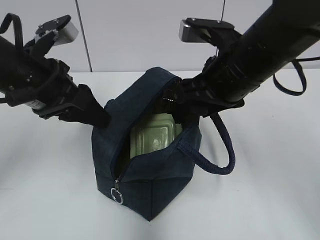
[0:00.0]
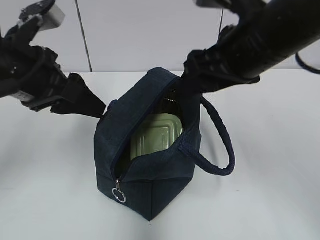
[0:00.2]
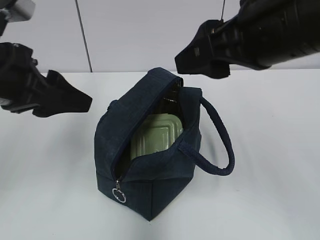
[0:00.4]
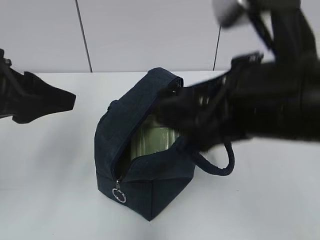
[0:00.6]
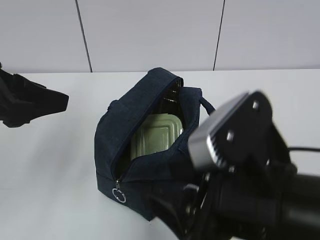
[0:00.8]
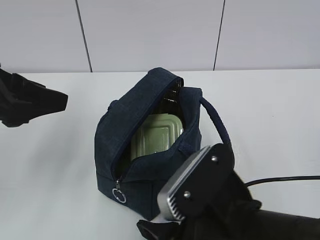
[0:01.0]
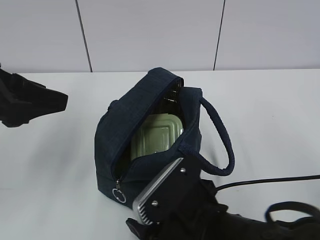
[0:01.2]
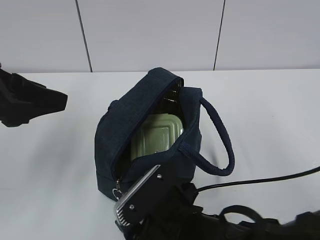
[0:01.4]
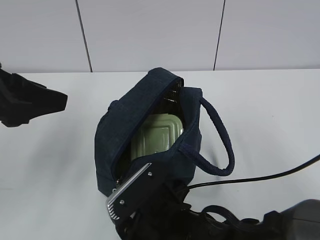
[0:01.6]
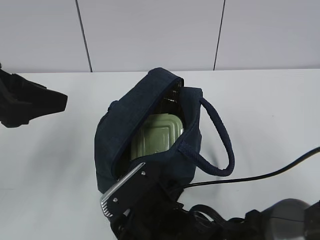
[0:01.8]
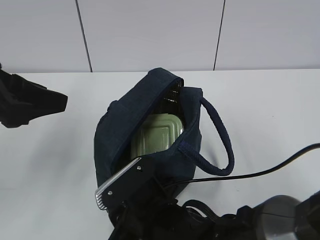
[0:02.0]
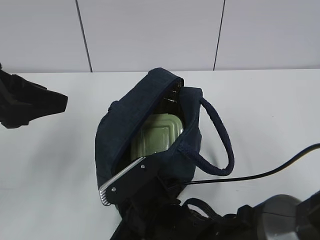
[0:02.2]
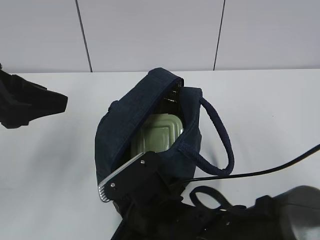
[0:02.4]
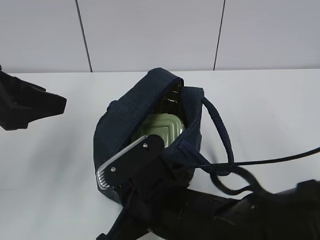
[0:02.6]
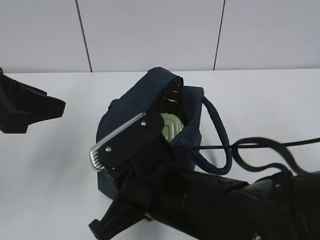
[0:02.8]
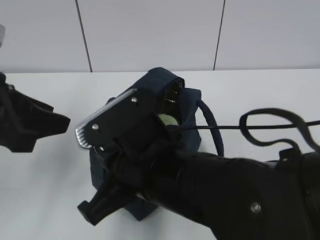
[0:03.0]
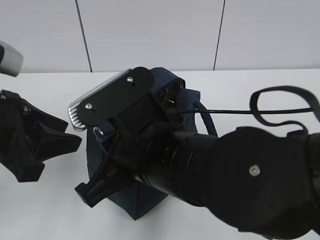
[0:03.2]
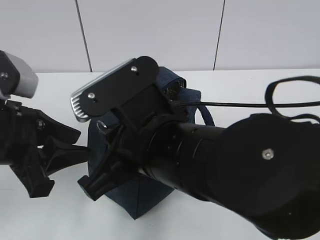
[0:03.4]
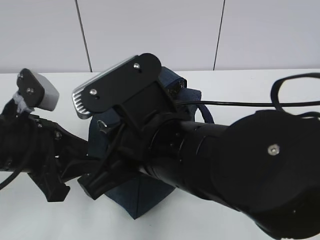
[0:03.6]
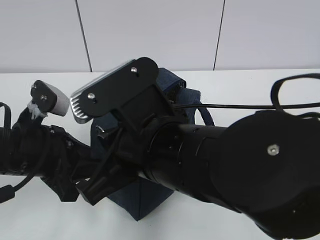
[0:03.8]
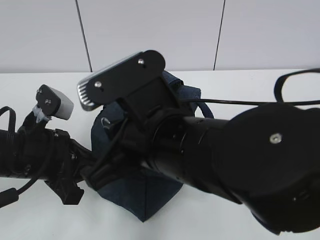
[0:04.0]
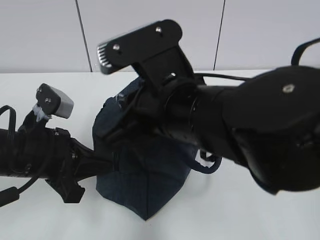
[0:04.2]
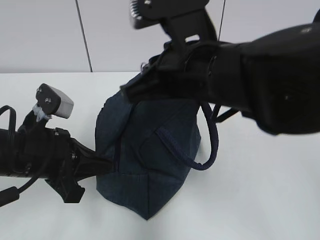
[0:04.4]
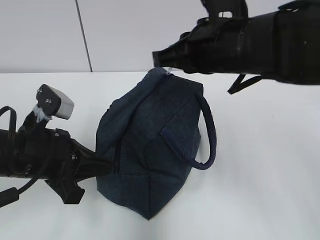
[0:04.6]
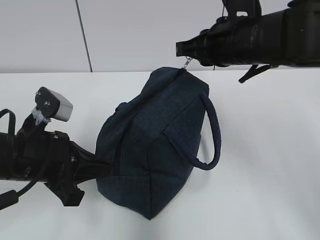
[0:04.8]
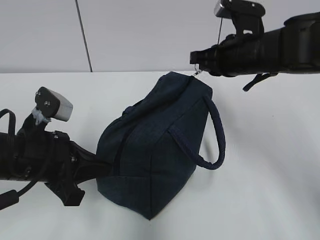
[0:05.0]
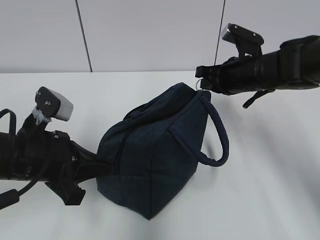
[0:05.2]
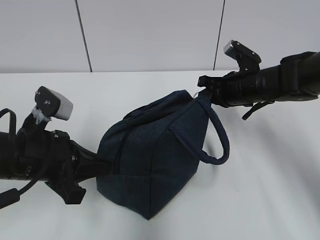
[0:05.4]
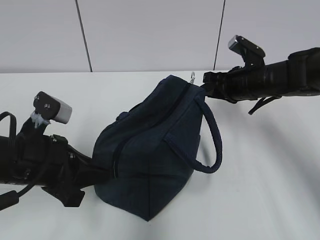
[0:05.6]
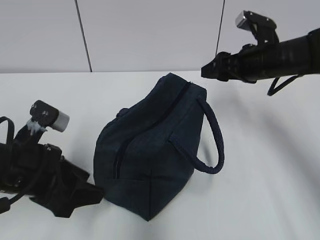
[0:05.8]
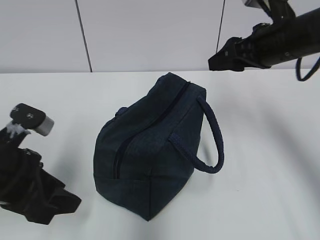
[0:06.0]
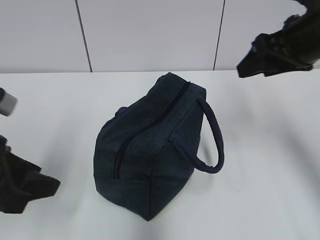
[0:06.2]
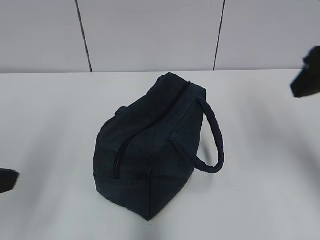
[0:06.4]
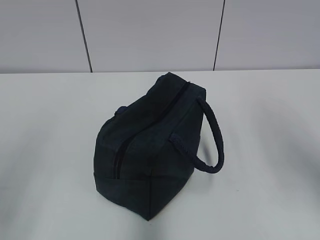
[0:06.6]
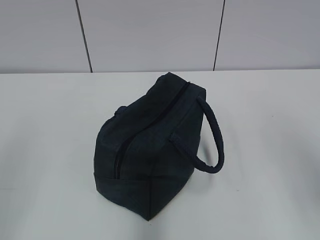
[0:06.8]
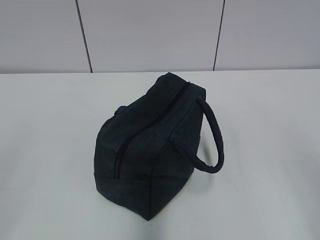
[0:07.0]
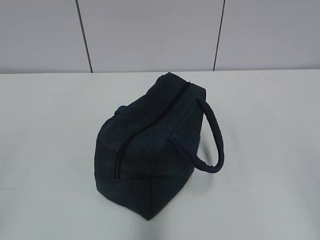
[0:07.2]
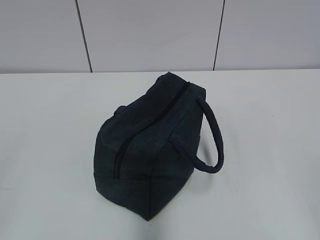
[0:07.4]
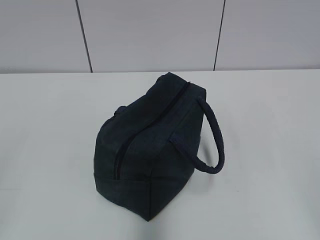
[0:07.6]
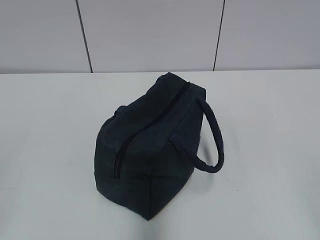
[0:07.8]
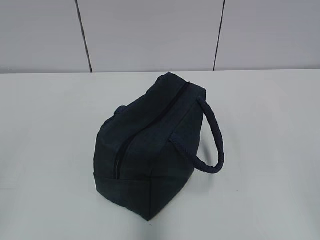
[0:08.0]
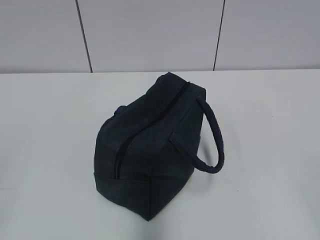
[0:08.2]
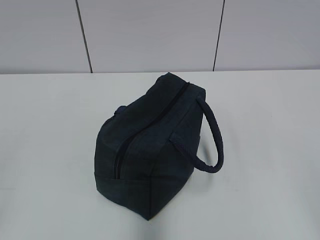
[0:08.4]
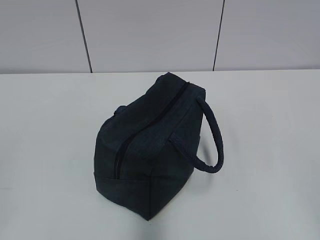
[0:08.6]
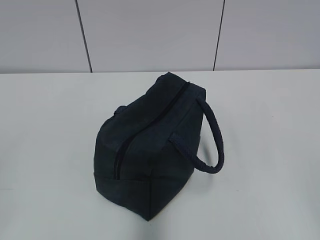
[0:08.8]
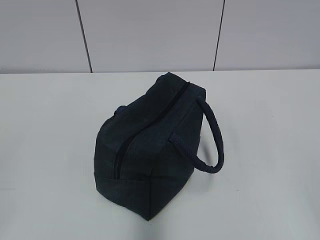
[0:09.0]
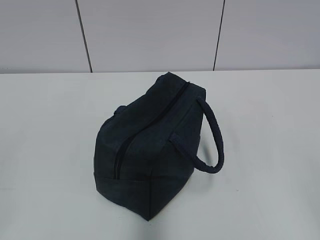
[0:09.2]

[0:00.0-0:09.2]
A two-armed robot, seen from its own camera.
Step, 0:00.2 to 0:05.4: Pull the zipper with your right hand.
0:00.0 to 0:01.6: The left gripper travels backward by about 10 cm. Meanwhile the right gripper heads downward, backward and to the left, covering approximately 25 cm.
0:01.6 to 0:03.0: The right gripper moves upward, about 10 cm, and closes up.
0:03.0 to 0:04.6: The right gripper moves forward, to the right and upward, roughly 15 cm, while the left gripper shifts approximately 10 cm downward, and closes its fingers.
0:04.6 to 0:06.2: The left gripper shifts about 10 cm upward and backward, and opens its fingers, while the right gripper is displaced to the right by approximately 10 cm, moves some 15 cm downward and comes back, and opens its fingers.
0:06.2 to 0:07.6: The left gripper goes approximately 20 cm backward and to the left. The right gripper heads backward, covering approximately 30 cm.
